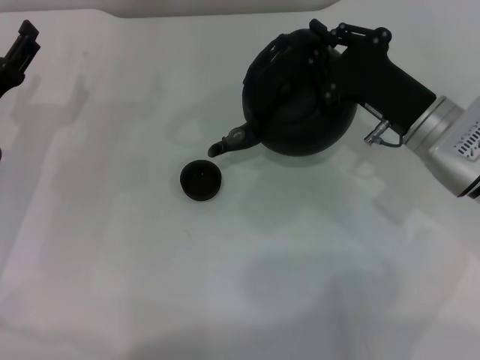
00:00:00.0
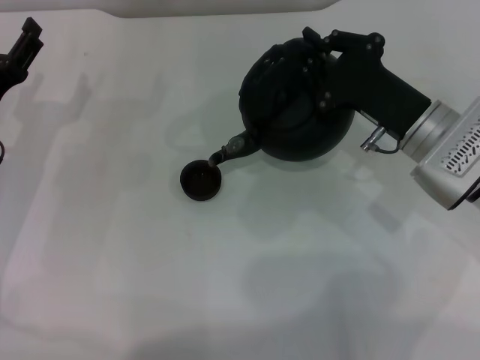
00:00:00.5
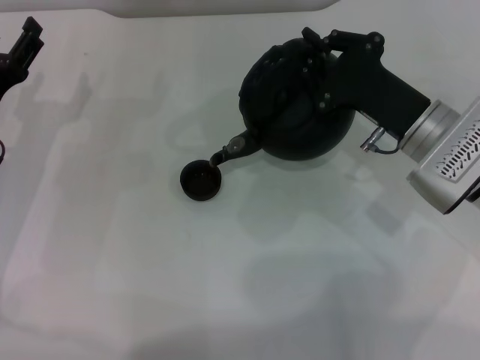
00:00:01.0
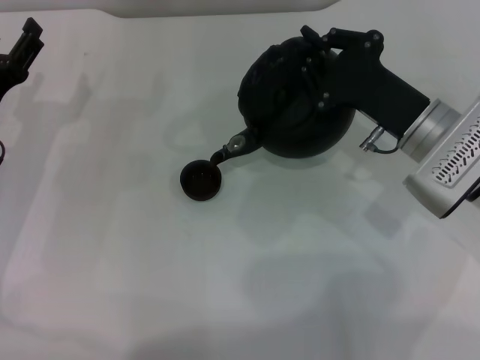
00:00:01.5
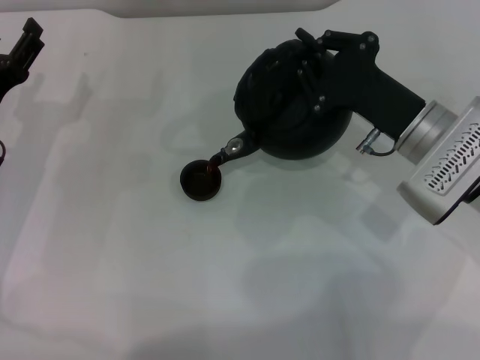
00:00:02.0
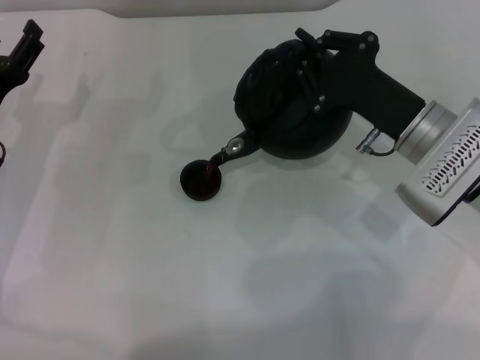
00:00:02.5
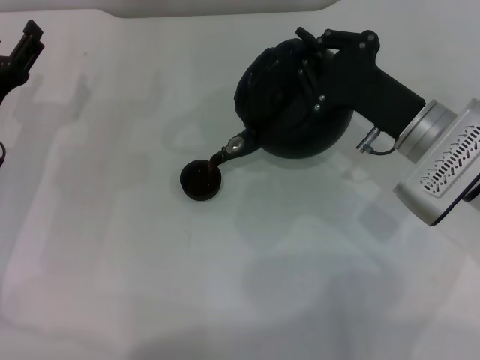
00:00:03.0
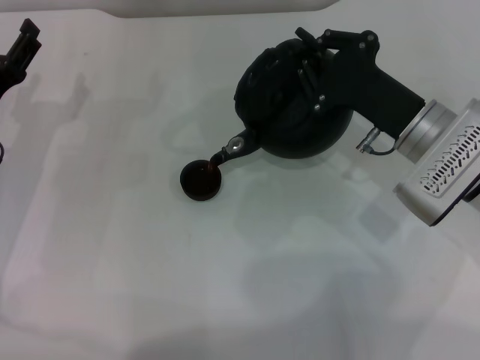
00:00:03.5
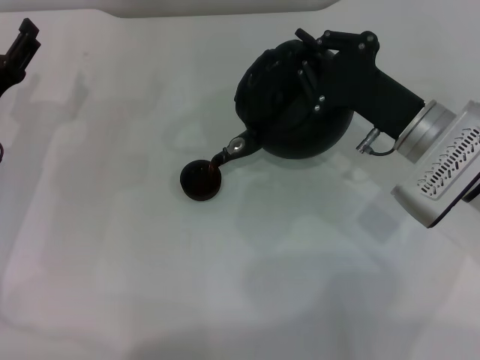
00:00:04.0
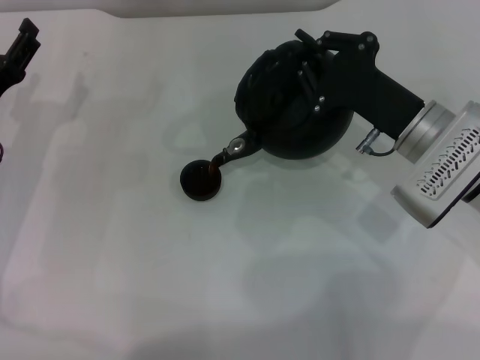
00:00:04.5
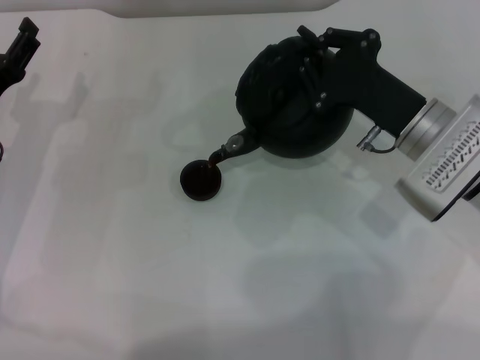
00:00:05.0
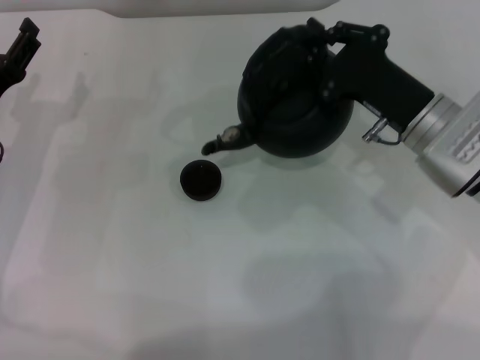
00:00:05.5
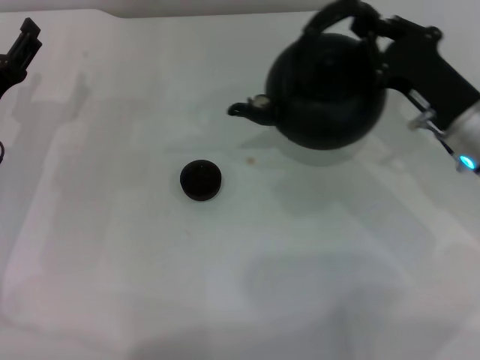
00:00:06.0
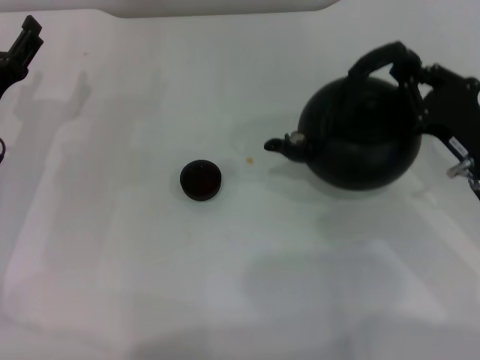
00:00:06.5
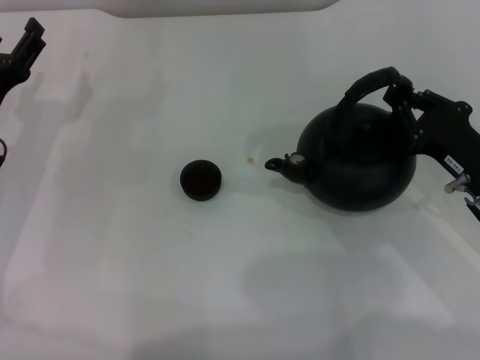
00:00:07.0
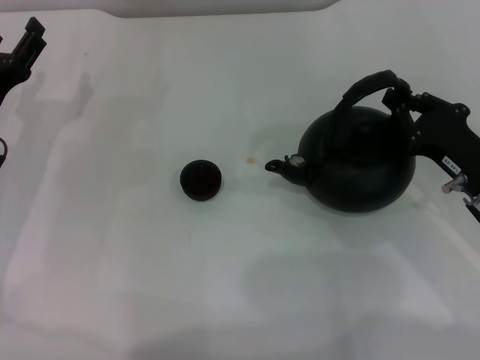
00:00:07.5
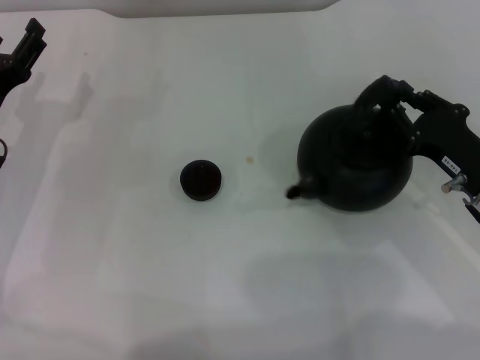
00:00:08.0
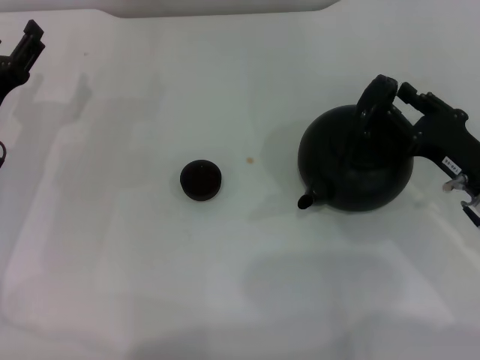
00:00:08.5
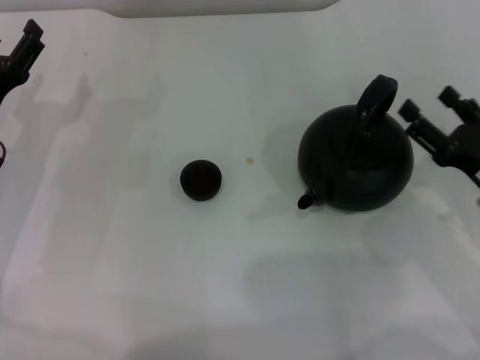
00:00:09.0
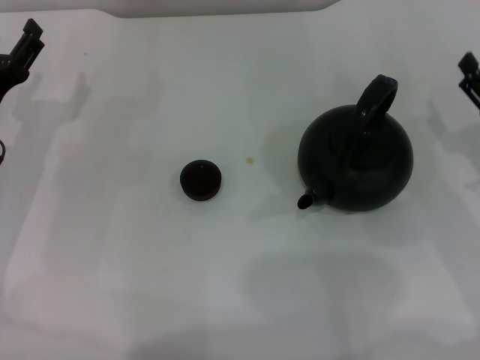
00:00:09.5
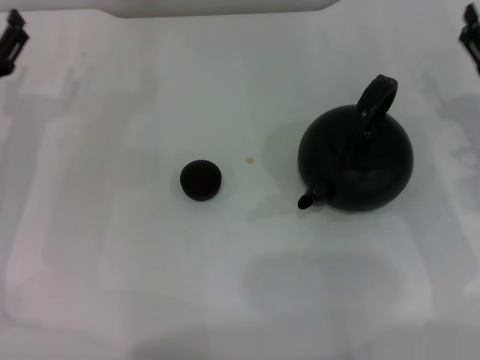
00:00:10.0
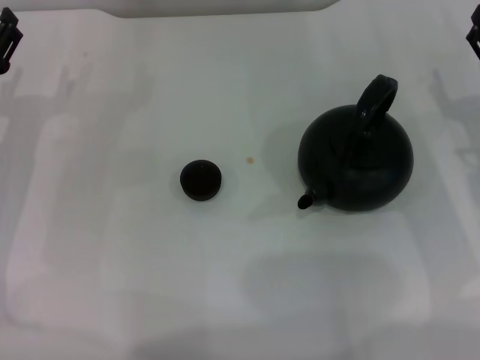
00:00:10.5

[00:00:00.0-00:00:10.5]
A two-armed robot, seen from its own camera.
Task of the whole recording: Grasp the handle of the teapot with one hand and pour tea into the teacup.
Step, 00:00:00.0 to 00:00:05.5: Pour tea into the teacup with the right gripper.
Step, 00:00:06.0 to 00:00:09.0: Put down the teapot with the right gripper.
00:00:00.0 to 00:00:02.0: The grippers make only small movements.
00:00:02.0 to 00:00:04.0: Both grippers stay about where they are.
00:00:04.0 to 00:00:06.5: The right gripper heads to the right, covering approximately 5 cm.
00:00:06.5 to 00:00:08.5: There are only small adjustments of the grippers.
00:00:08.5 to 00:00:10.5: The right gripper opens up.
